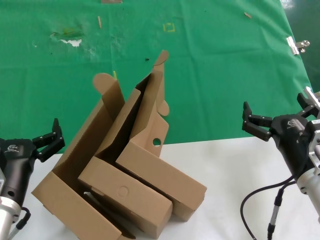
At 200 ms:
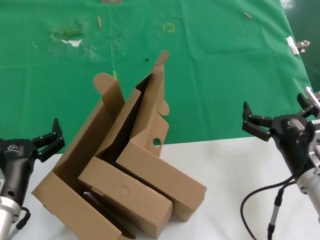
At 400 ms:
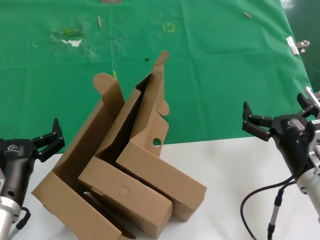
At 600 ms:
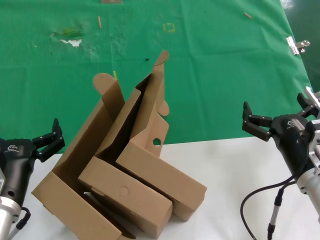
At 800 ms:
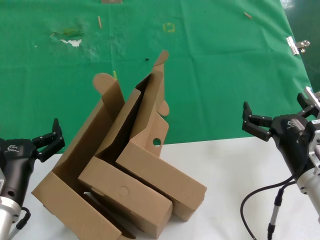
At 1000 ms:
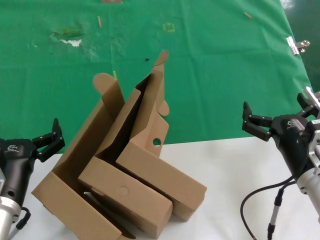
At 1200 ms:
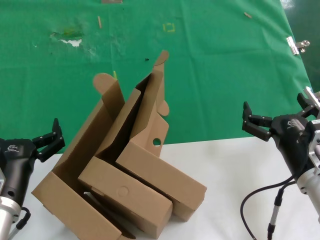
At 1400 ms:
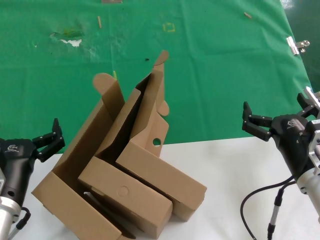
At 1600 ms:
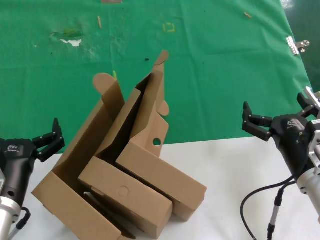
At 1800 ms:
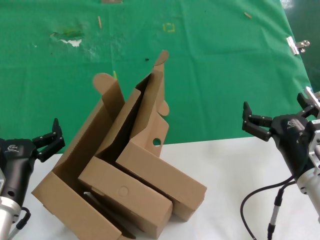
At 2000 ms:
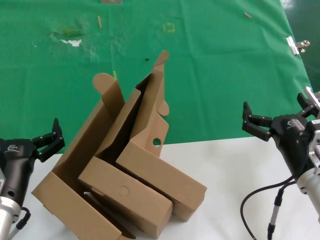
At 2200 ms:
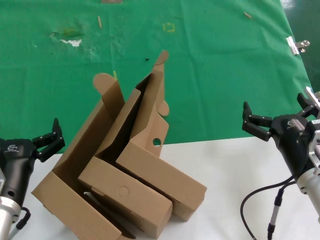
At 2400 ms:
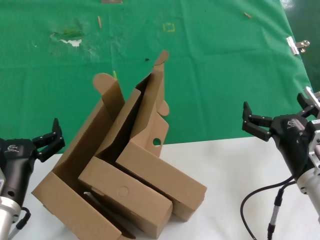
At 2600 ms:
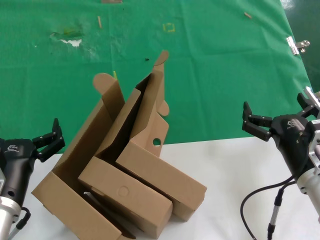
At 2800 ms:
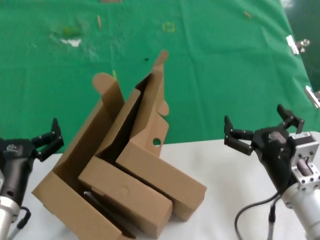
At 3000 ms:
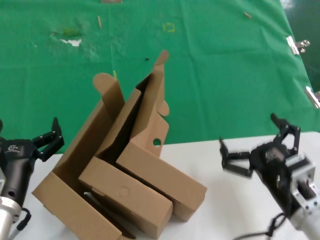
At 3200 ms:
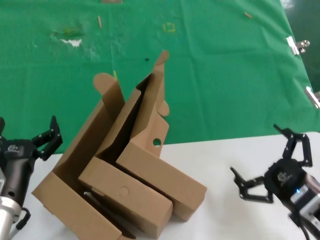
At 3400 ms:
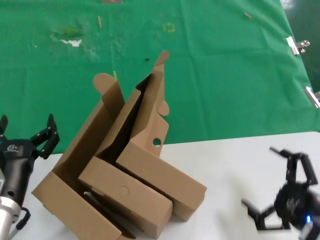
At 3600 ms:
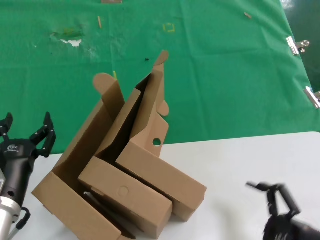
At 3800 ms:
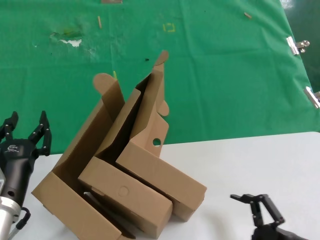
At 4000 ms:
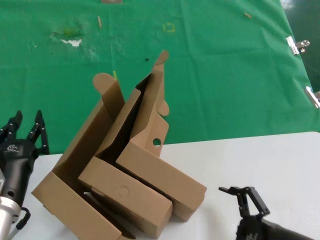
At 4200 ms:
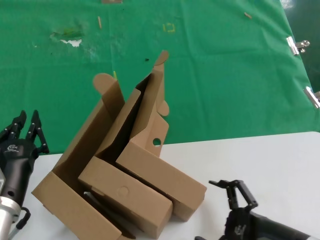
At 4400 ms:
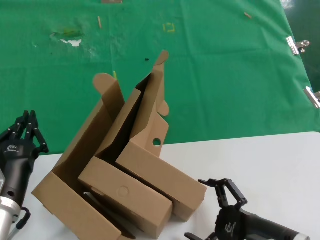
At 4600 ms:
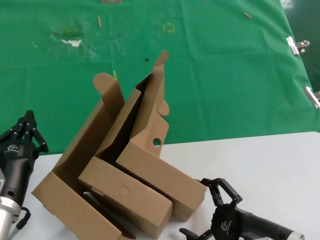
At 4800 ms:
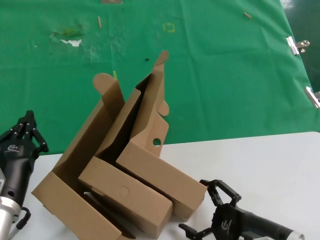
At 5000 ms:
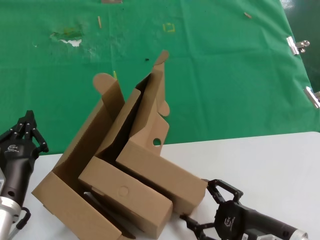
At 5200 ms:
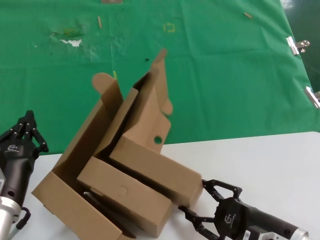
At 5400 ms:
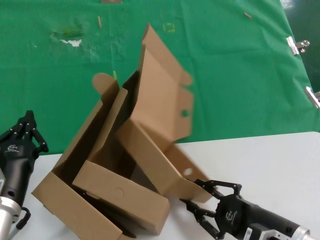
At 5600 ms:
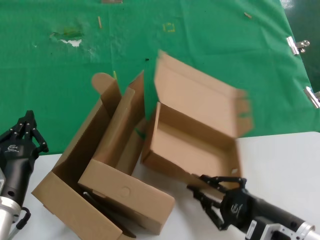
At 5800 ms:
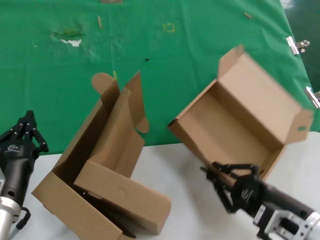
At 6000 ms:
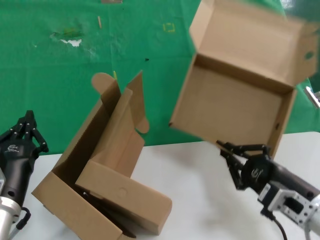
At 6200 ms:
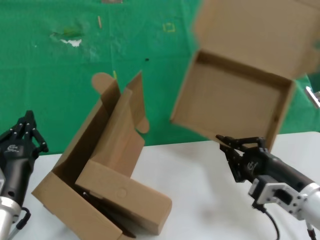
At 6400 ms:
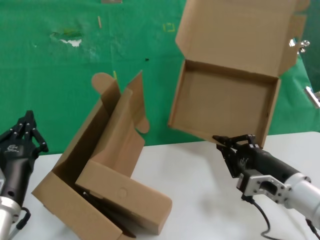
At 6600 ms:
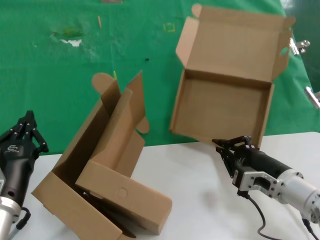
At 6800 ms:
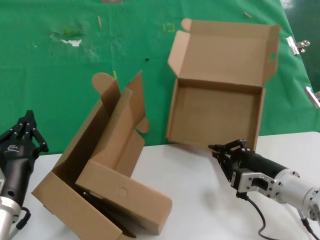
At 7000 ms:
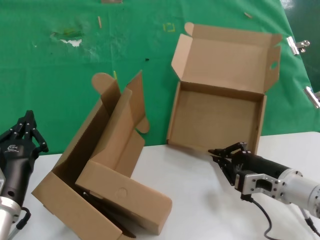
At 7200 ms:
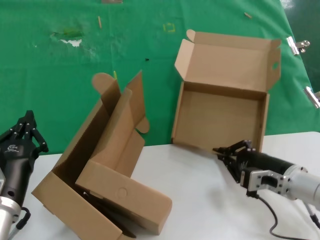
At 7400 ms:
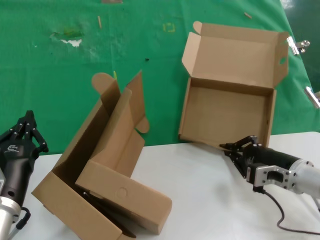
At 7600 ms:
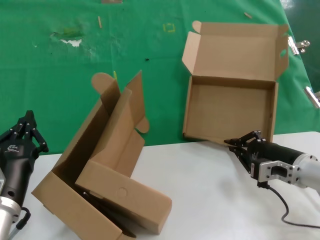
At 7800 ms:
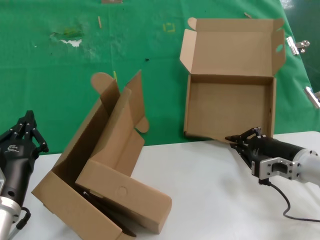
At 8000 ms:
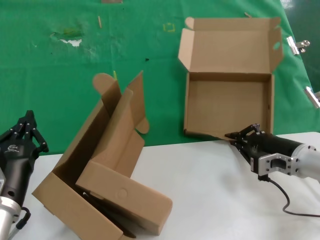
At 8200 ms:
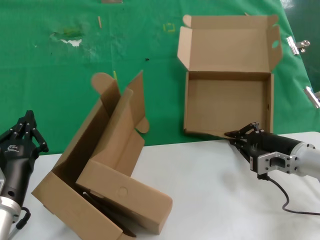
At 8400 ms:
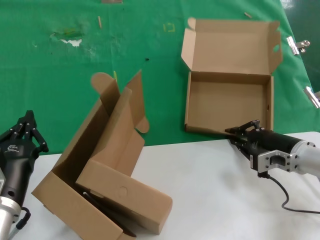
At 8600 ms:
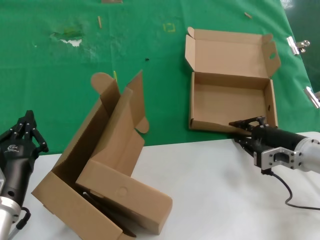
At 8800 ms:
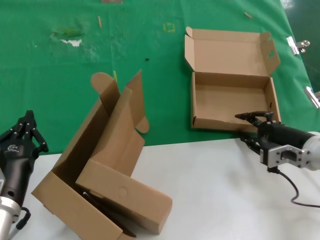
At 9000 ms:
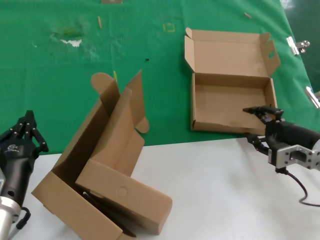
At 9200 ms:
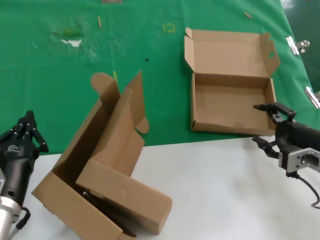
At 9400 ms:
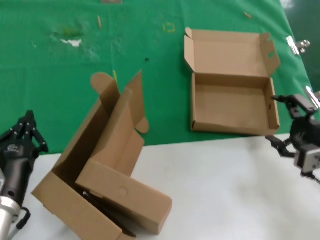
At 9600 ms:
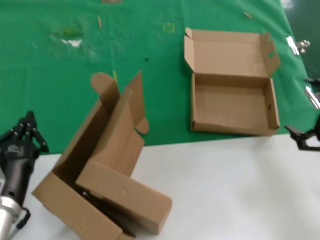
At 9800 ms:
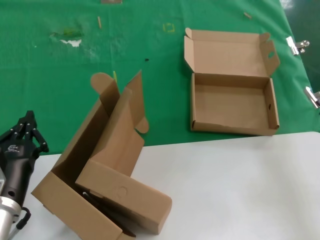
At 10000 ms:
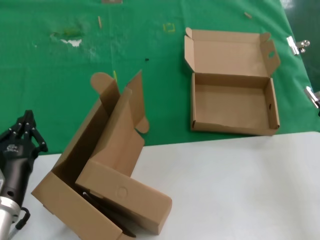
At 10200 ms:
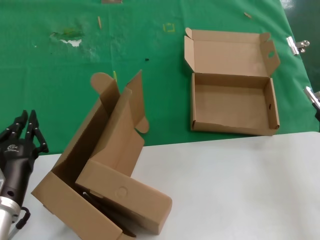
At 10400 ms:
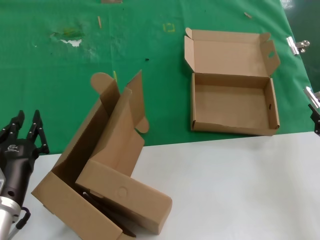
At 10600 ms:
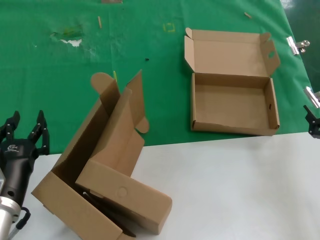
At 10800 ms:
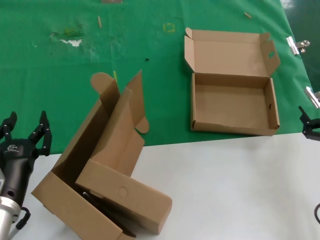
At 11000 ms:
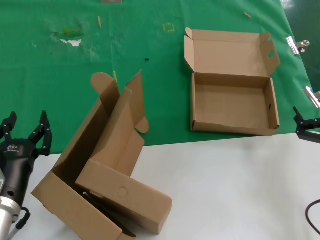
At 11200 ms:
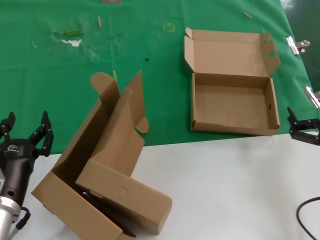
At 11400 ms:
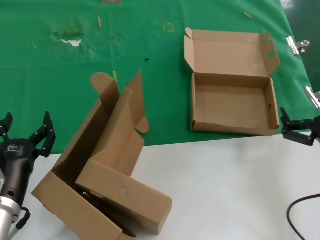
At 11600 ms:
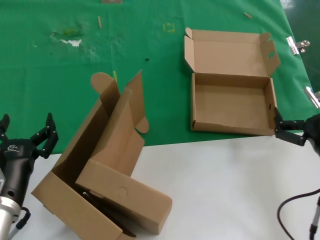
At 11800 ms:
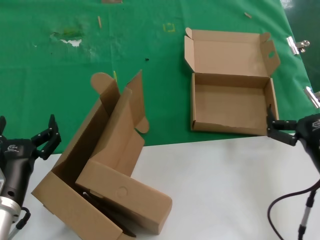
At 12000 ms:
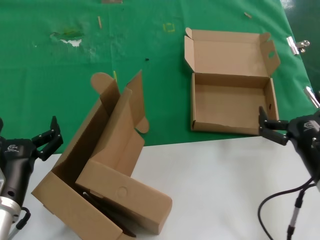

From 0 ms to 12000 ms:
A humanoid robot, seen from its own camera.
Task of the whole recording: pick up the paper box and put it at the back.
Step, from 0 ms to 5600 ms: Grasp the paper box.
Step, from 5800 ms to 9000 ms: Place the paper box on the table.
From 0 ms to 1600 ms: The two hands keep their place.
From 1600 ms to 3000 ms: The right hand ends up some 5 cm from where it was.
From 6000 ms to 7600 ms: The right hand travels forward by some 15 cm.
From 7600 ms to 9000 ms: The right hand moves about 5 cm.
From 9000 ms to 10400 ms: The right hand travels backward and upward by roughly 15 cm.
From 10400 ms to 12000 ms: The right hand travels to the left and downward by about 10 cm.

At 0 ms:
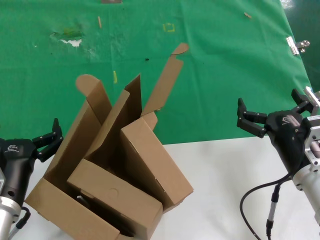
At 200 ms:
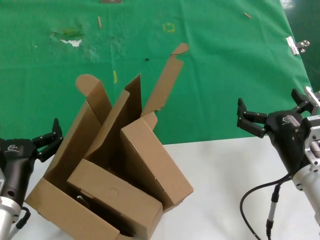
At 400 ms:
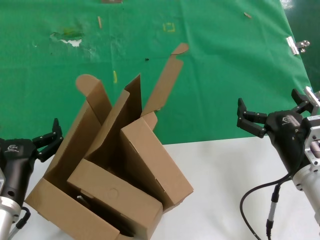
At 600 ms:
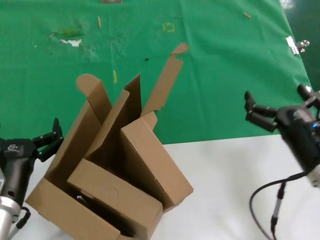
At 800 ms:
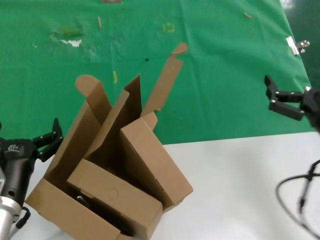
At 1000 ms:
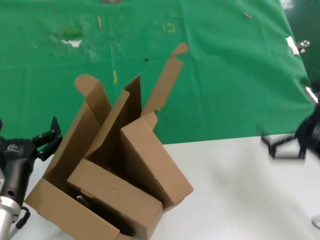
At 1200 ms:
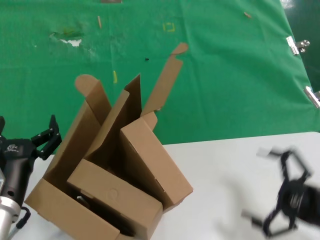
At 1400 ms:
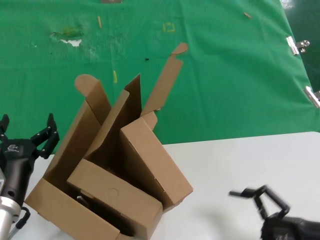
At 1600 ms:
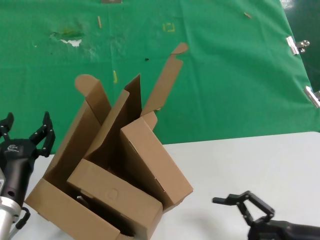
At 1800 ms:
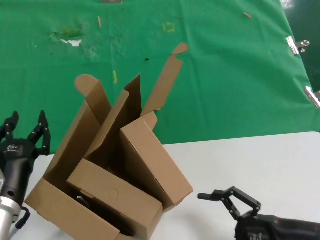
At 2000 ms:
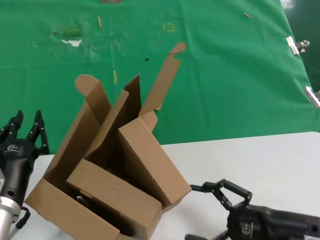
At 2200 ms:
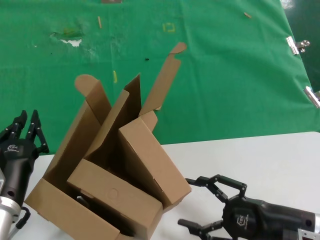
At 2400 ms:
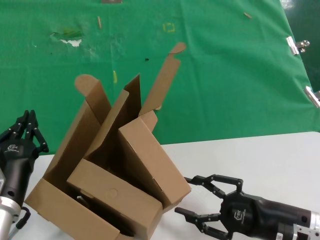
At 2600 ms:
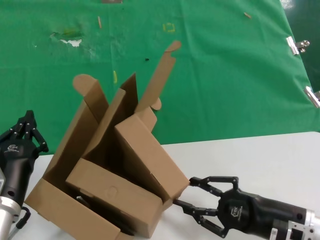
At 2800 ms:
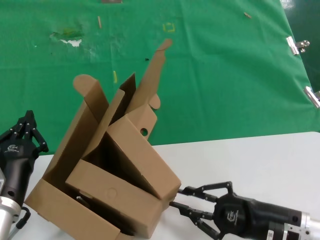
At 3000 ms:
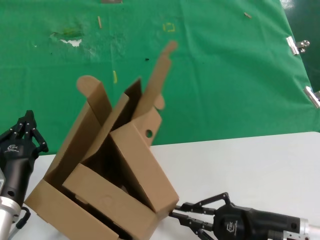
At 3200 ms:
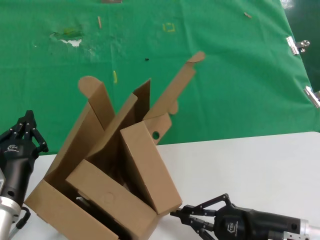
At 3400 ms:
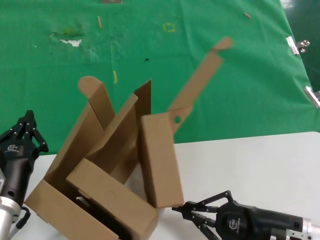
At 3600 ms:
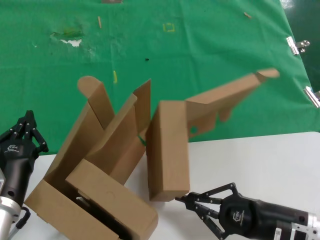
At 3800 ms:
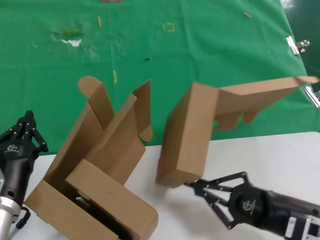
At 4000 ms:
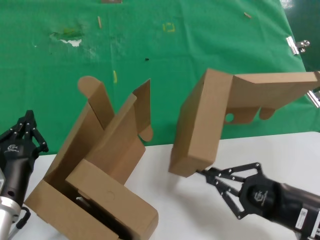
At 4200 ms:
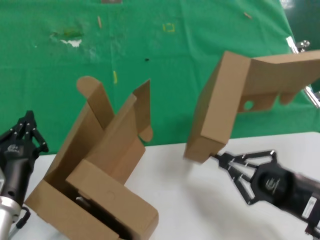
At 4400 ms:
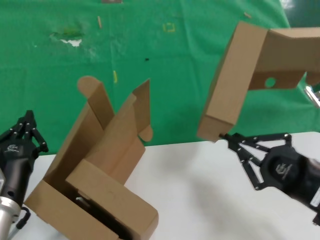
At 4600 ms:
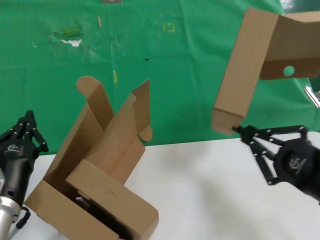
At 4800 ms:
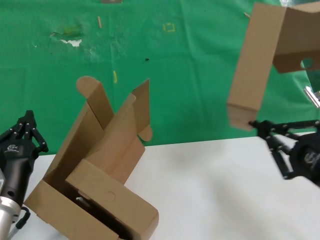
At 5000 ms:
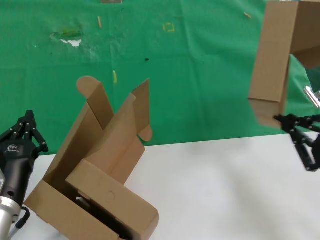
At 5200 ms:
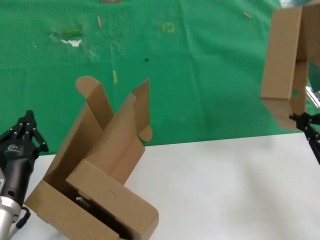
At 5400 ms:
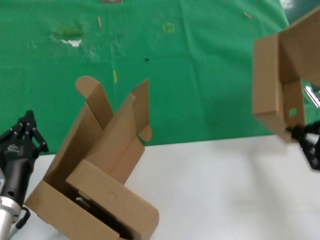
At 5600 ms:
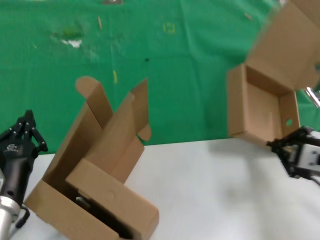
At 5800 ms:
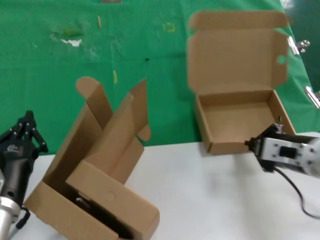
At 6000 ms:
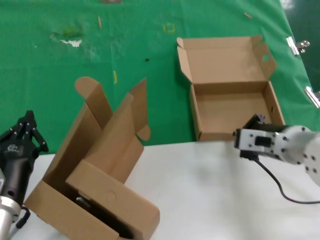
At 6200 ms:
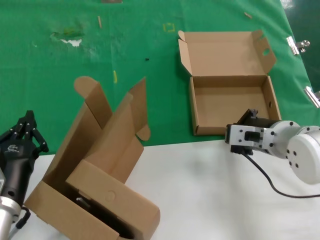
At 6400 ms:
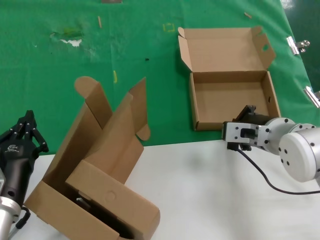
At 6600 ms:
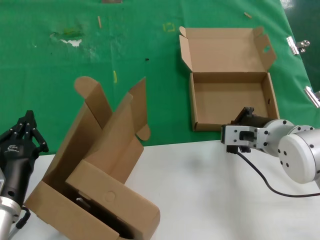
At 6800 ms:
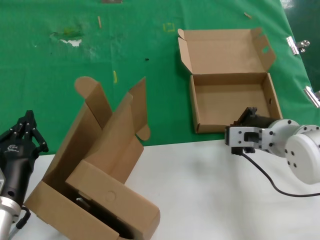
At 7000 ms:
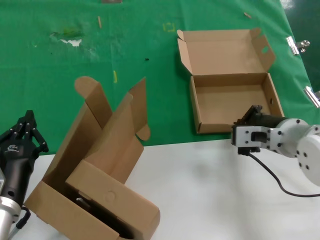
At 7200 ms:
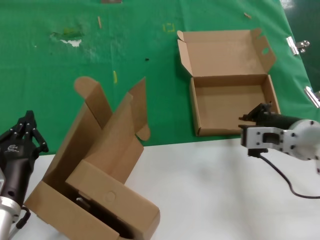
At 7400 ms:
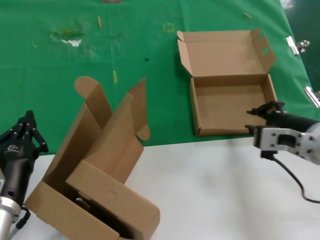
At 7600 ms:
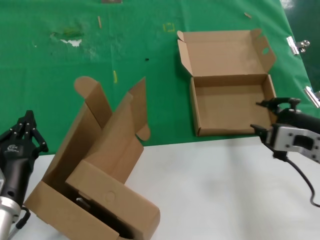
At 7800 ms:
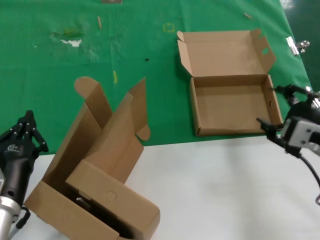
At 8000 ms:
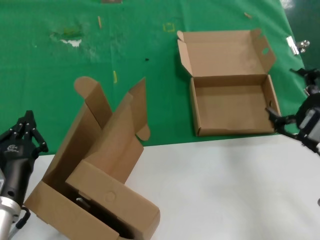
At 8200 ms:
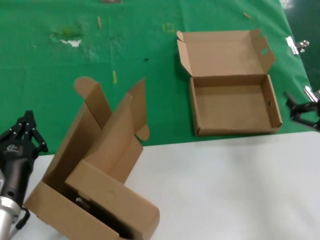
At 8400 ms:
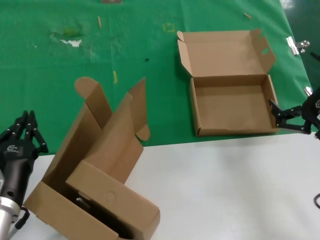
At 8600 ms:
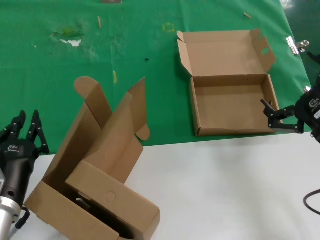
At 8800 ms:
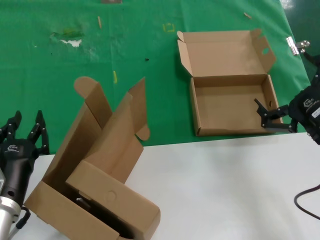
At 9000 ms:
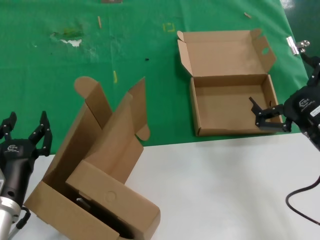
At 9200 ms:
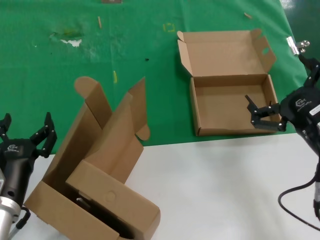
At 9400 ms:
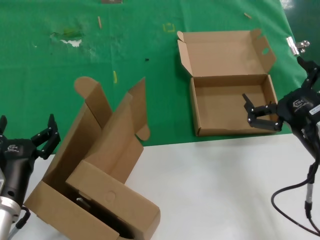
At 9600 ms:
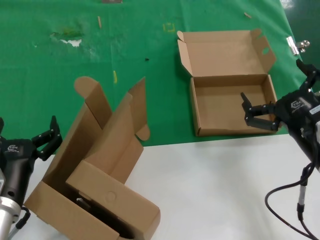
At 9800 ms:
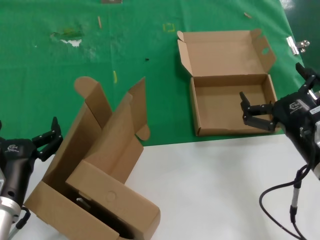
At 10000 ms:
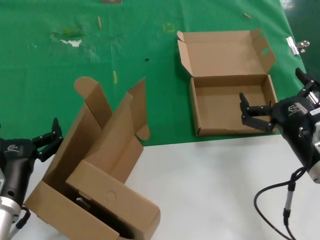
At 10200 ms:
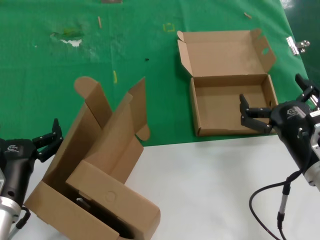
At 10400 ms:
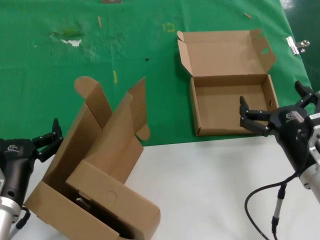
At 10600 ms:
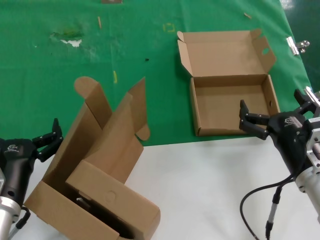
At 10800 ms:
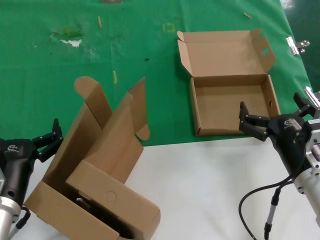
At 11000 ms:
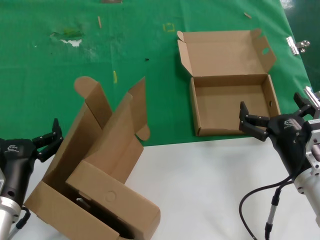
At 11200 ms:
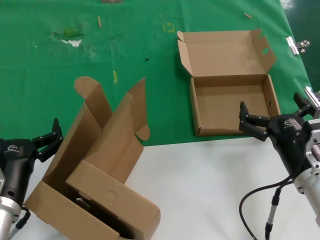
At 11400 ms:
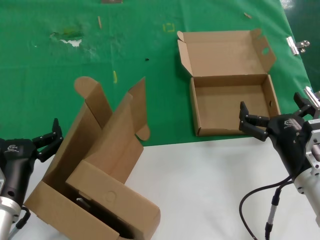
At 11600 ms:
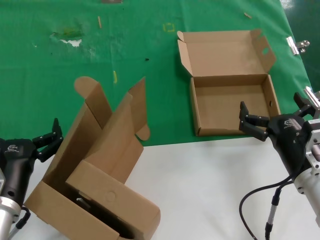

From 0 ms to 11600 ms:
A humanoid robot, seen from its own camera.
Task of the whole recording: pick up the paper box and put it at the back.
Step, from 0 ms to 3000 ms: Grasp the paper box.
Step, from 3200 ms to 7200 ms: Place the paper box on the table.
From 0 ms to 1400 ms: The right hand heads to the right and backward, covering about 15 cm.
From 1400 ms to 2800 ms: The right hand heads to the left, covering some 5 cm.
From 2800 ms to 4400 ms: The right hand is displaced upward and backward by some 10 cm.
From 4400 ms to 5800 ms: The right hand goes some 10 cm forward.
From 7200 ms to 8800 ms: The right hand travels backward by some 10 cm.
From 8800 ms to 10200 ms: The right hand travels downward by approximately 5 cm.
From 10200 ms to 11600 ms: The hands stay close to where they were, moving slightly.
